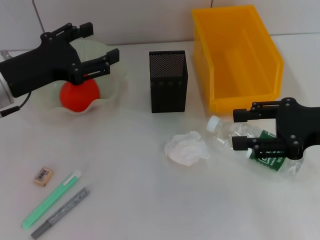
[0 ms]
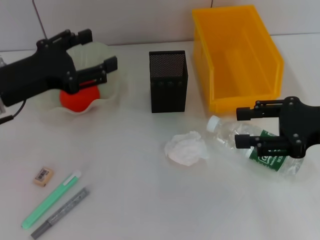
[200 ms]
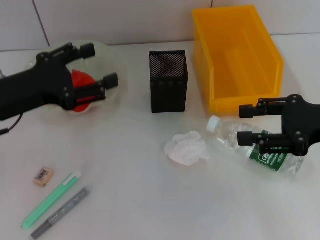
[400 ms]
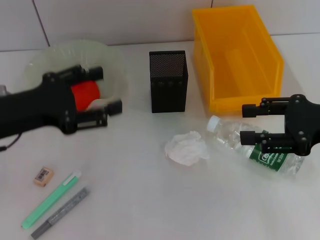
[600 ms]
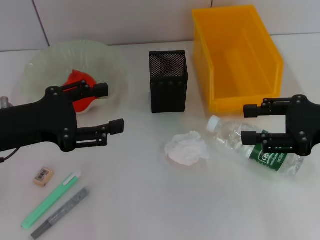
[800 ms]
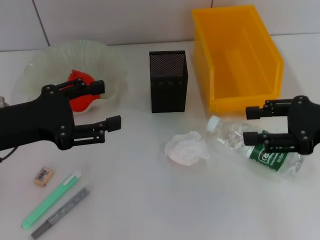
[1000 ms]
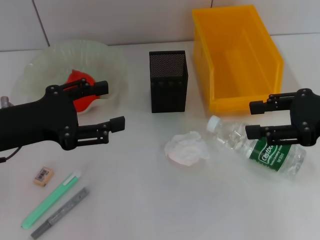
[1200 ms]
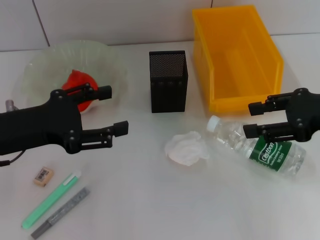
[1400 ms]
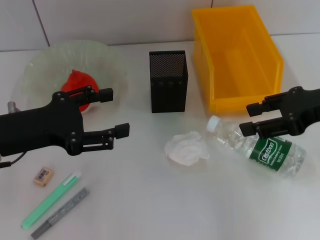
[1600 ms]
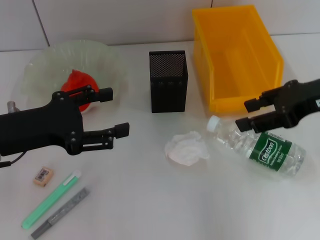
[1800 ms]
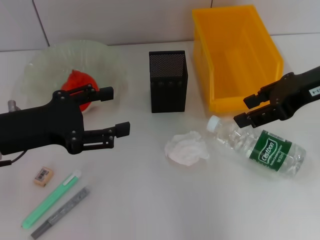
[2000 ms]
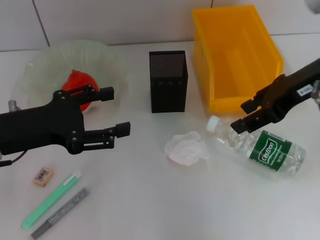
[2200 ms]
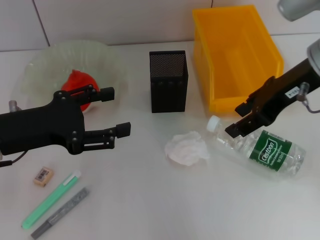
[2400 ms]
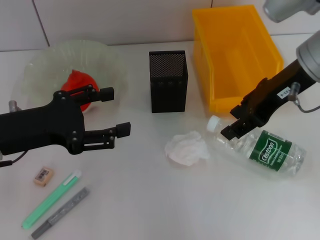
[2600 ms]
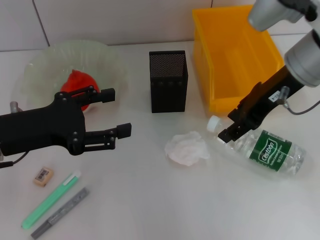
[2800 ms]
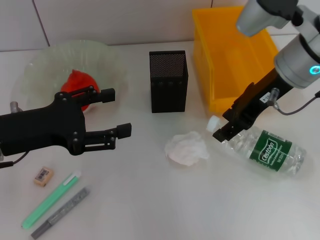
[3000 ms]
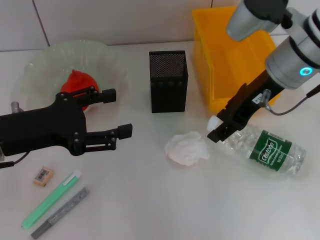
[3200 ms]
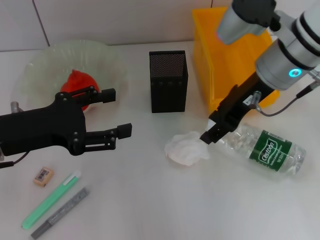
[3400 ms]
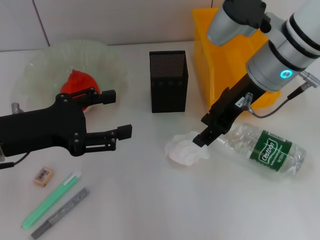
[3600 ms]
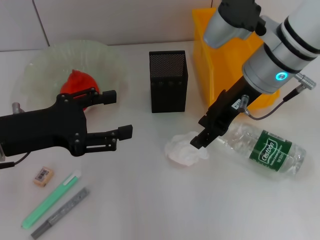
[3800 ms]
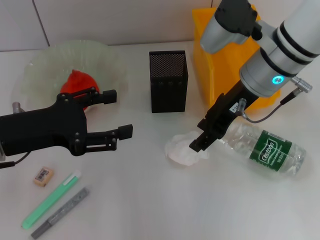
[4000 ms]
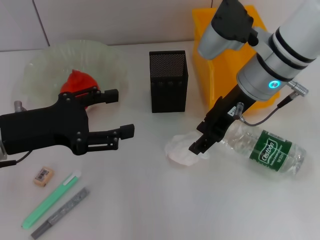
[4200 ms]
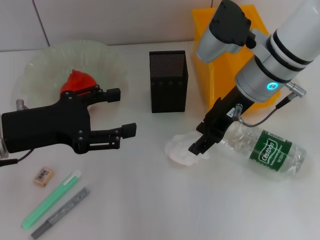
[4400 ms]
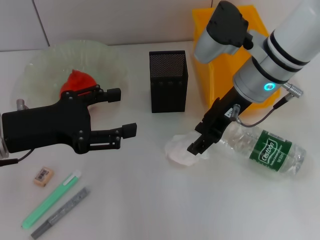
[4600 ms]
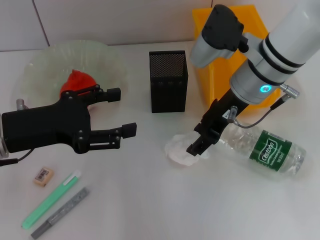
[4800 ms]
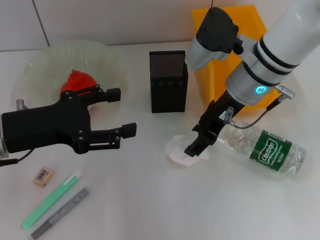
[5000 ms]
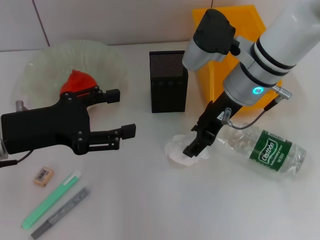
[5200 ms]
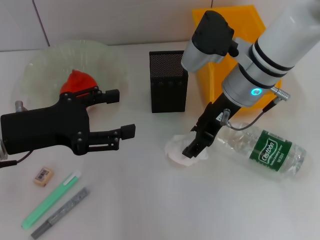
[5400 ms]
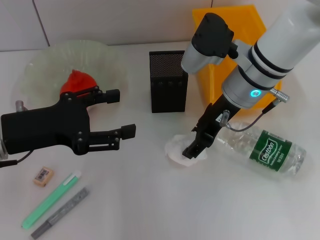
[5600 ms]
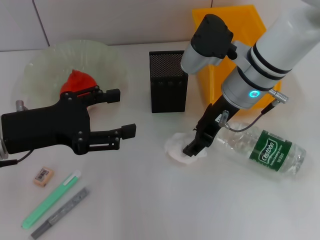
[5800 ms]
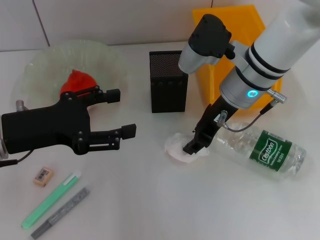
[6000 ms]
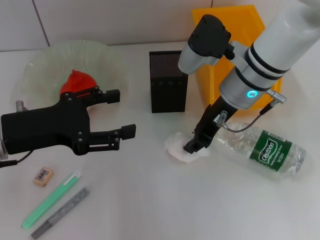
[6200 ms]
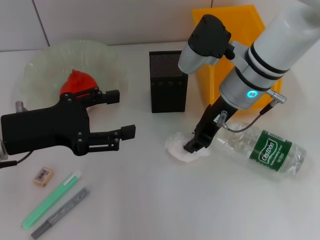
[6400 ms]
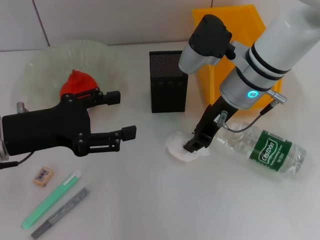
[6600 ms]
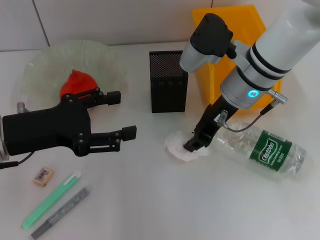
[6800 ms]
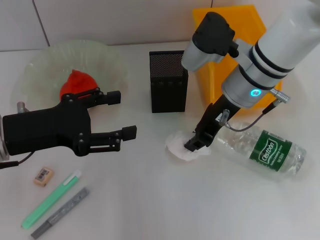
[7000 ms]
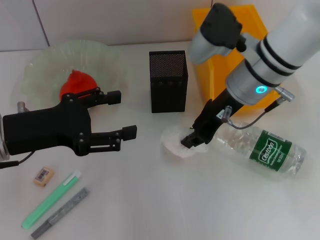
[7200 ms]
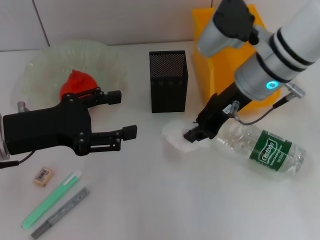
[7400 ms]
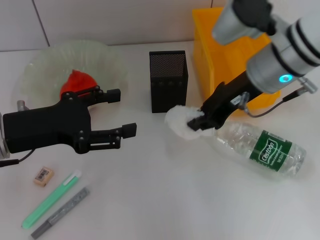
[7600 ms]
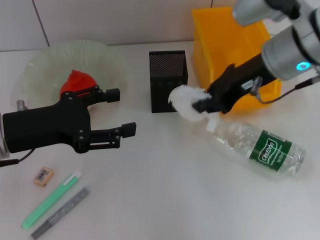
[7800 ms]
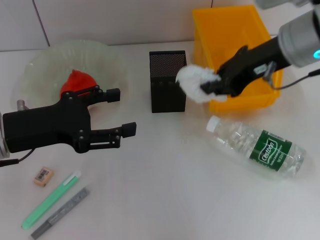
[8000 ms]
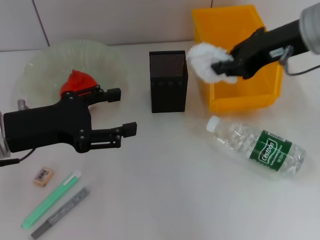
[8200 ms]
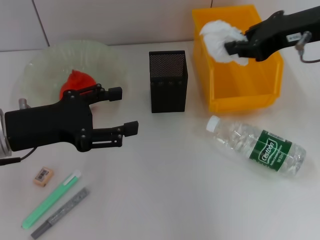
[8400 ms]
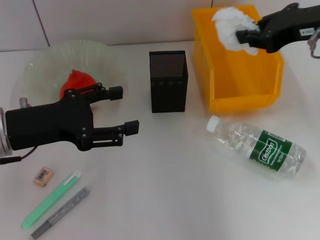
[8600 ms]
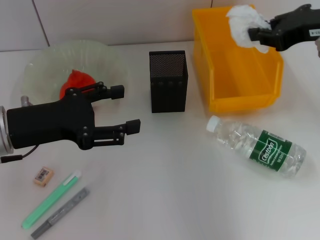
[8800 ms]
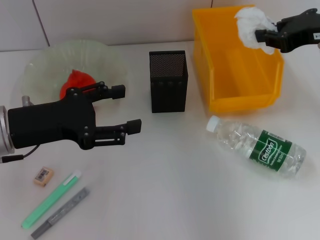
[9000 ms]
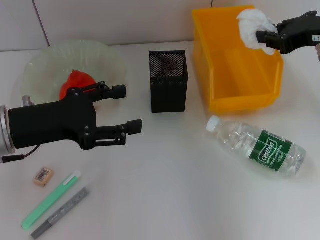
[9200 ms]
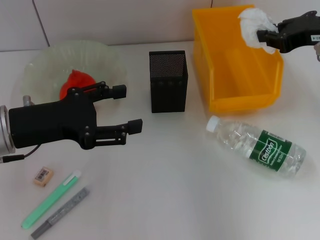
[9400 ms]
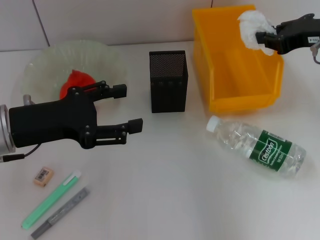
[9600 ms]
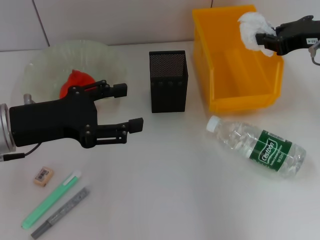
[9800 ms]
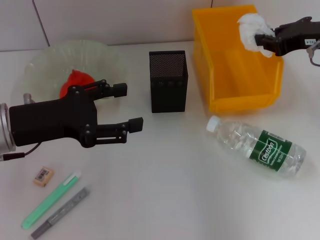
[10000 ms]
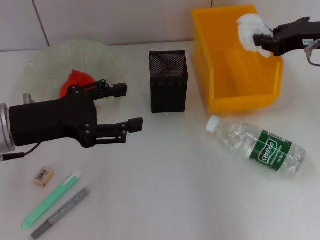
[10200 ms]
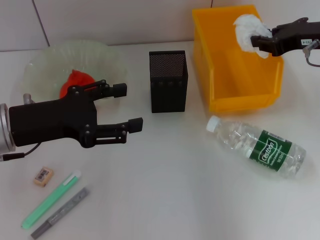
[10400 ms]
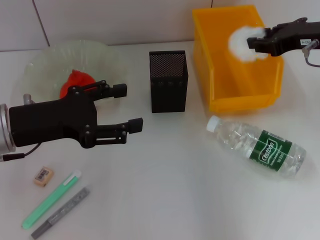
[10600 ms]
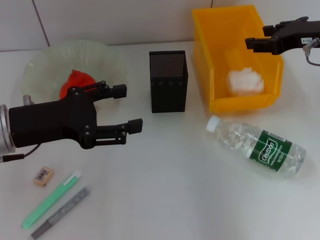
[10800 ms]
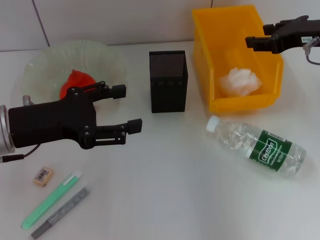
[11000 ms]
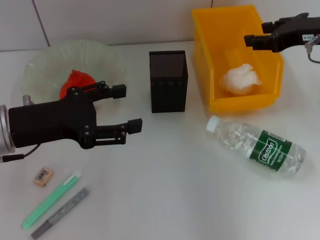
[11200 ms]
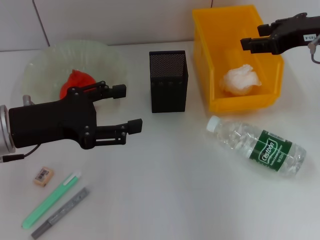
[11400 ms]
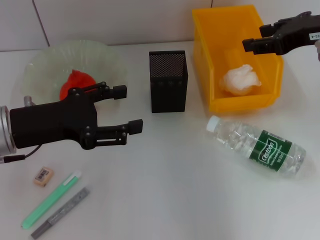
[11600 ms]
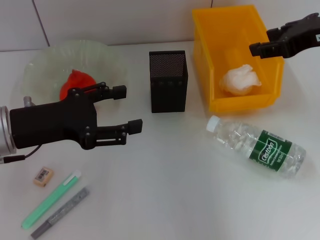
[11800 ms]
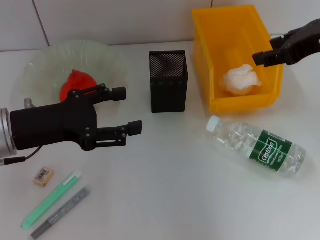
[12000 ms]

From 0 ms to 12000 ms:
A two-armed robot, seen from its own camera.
Step, from 0 ms to 6600 ms: Grab the paper ball with the right hand.
Step, from 6800 ms to 10800 ms: Place the paper ball into the trash can with the right hand.
From 0 ms to 1600 ms: The left gripper heads backward, covering roughly 5 cm. Meanwhile the right gripper moves approximately 5 cm.
From 1600 ms to 3000 ms: The right gripper is displaced to the left and forward by some 10 cm.
From 3000 ms to 4400 ms: The right gripper moves some 5 cm.
From 4400 ms to 6000 ms: The grippers stay close to where they were, moving slightly.
From 6000 ms to 7600 ms: The right gripper shifts by roughly 5 cm, and closes up.
From 7600 ms to 9000 ms: The right gripper travels to the right by approximately 10 cm.
From 9000 ms to 10400 ms: The grippers move only a little.
From 10400 ms to 12000 ms: The right gripper moves upward, roughly 5 cm, and opens up.

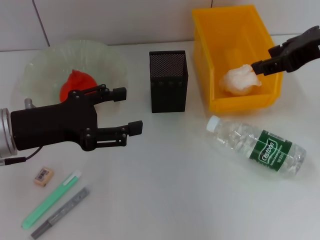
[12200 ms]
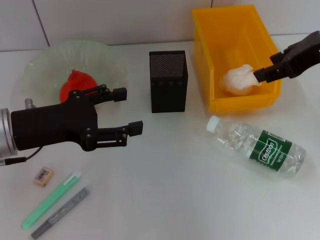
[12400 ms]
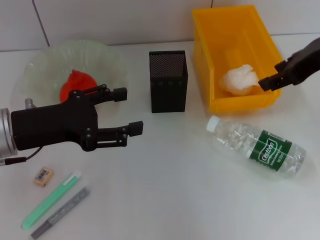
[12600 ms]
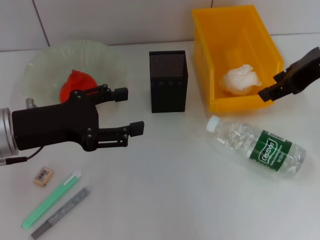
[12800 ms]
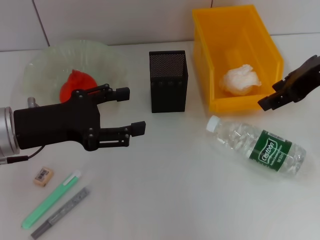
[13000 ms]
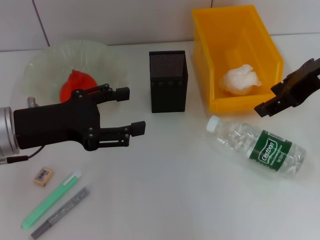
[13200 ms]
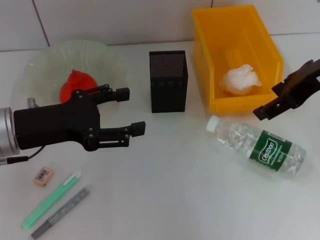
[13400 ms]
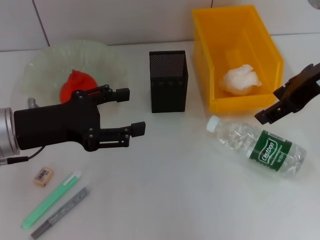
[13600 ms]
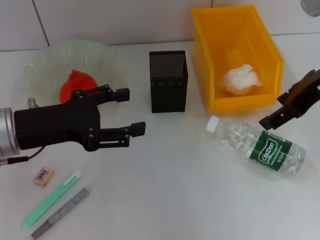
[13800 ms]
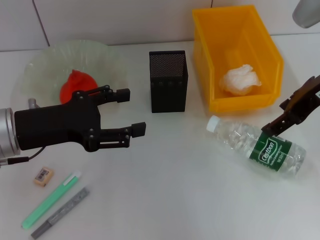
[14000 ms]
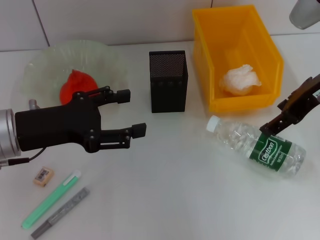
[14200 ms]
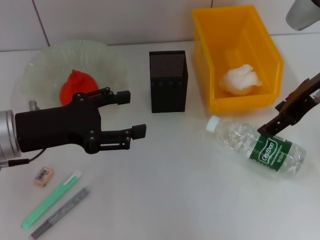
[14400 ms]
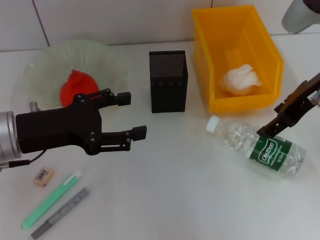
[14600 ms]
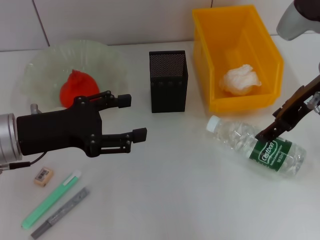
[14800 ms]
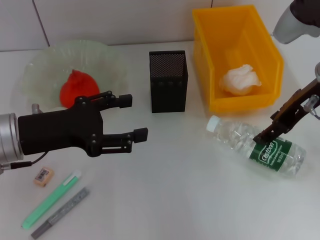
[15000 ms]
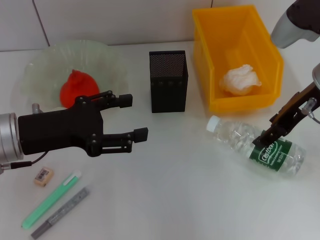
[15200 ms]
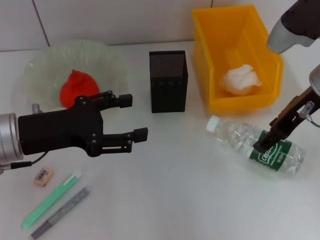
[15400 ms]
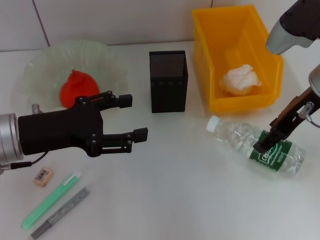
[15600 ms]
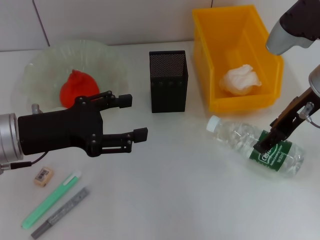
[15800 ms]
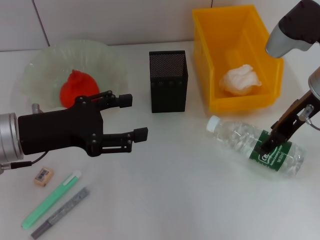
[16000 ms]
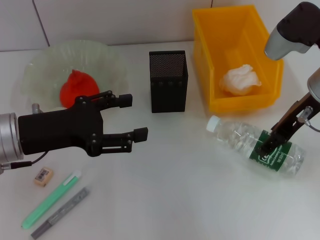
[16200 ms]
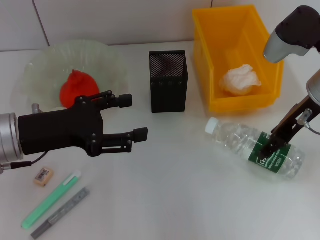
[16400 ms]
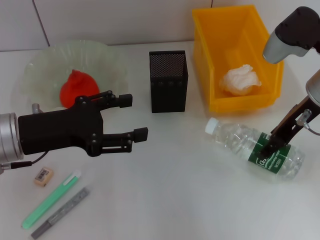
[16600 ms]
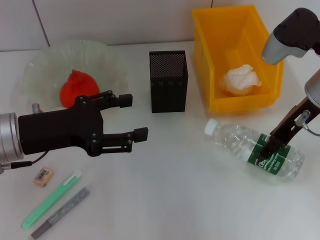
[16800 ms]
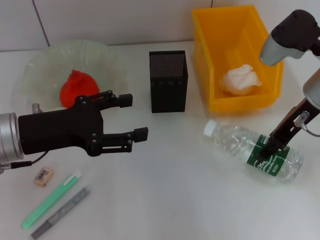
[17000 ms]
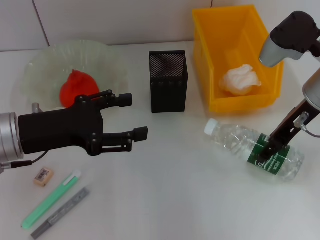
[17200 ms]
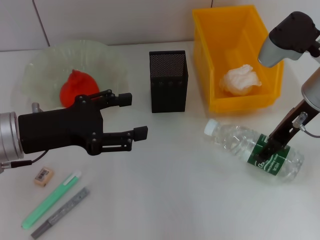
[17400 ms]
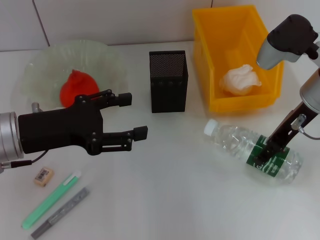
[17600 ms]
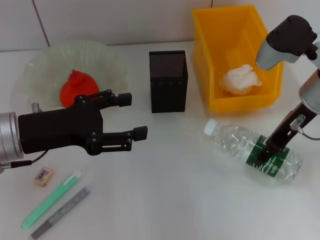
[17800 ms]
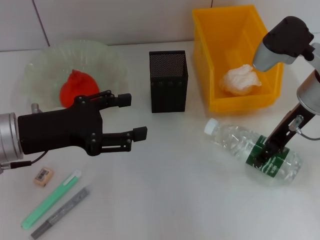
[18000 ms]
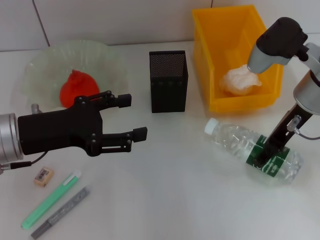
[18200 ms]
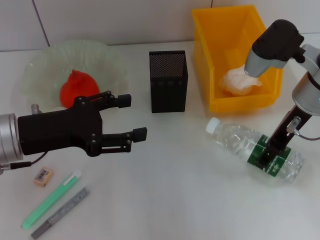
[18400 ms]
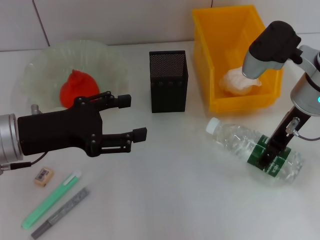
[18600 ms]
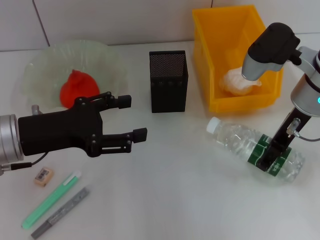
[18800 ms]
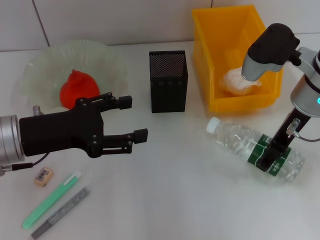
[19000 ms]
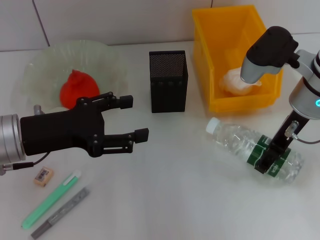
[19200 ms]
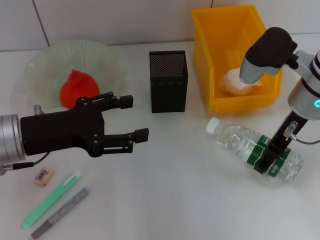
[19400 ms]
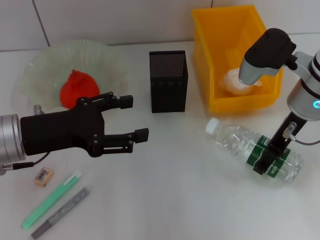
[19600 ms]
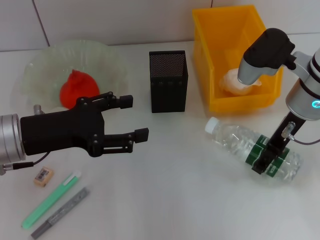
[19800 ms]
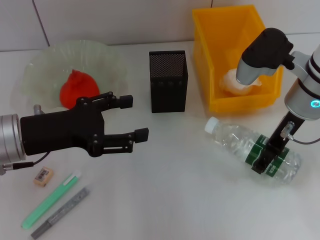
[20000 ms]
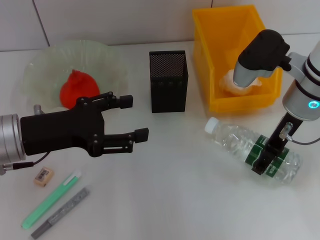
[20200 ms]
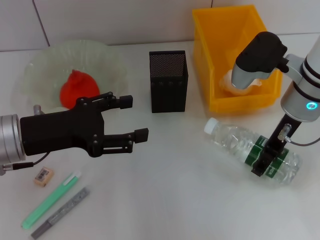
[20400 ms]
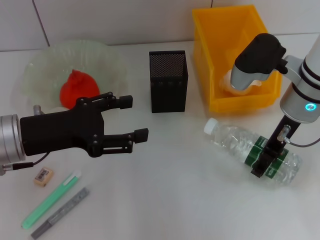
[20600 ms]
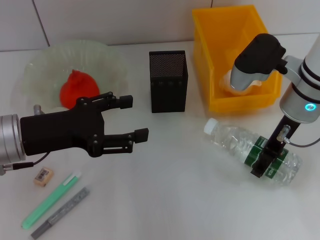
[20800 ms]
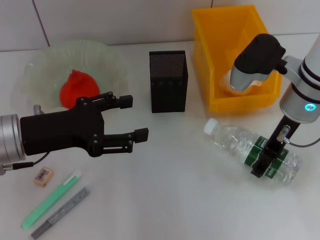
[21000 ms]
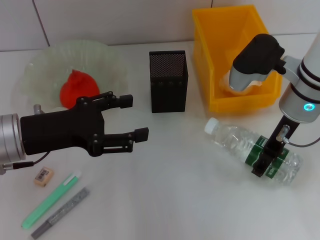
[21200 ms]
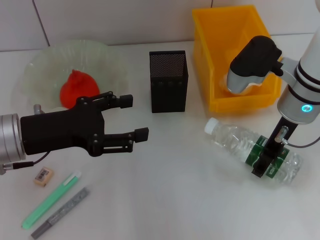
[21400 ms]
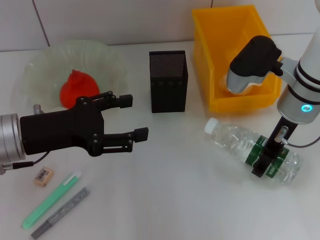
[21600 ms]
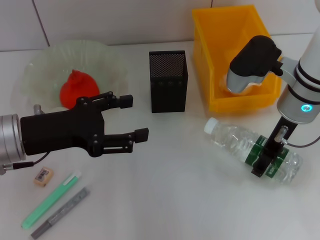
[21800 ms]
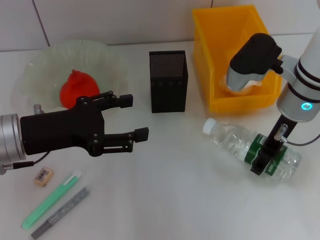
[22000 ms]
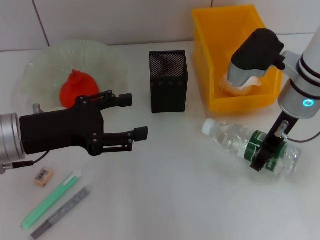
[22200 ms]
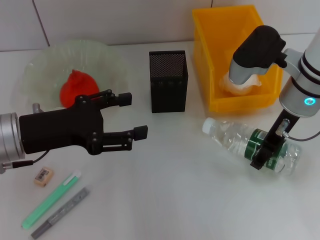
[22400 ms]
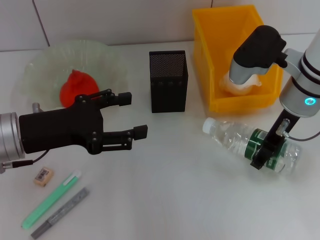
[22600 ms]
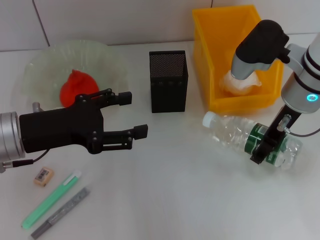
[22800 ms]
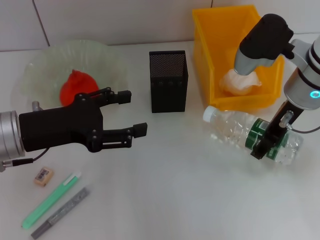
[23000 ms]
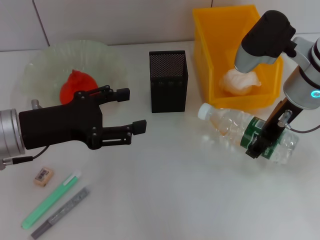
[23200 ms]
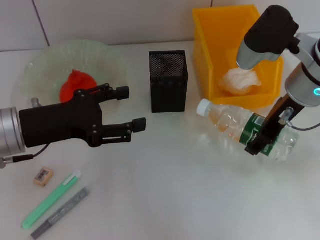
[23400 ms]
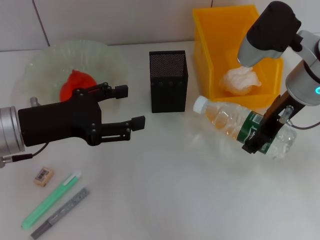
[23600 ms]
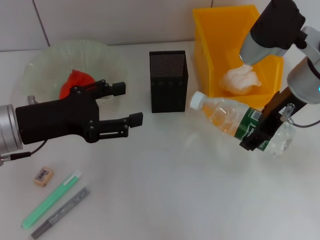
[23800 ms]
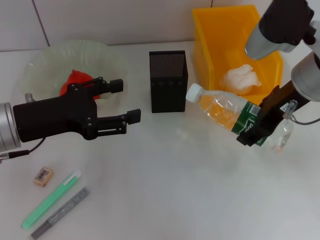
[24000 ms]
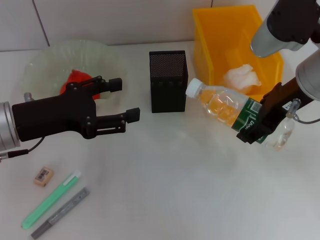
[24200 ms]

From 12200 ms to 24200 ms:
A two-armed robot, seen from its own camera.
Step, from 12200 ms to 21000 ms: Grab the water bottle with the right hand.
From 12200 ms to 13800 ms: The right gripper opens its fingers.
From 13800 ms to 15200 ms: There are only small adjustments of the grippers.
From 15200 ms to 19800 ms: The grippers make only small movements.
From 19800 ms to 21200 ms: Neither gripper changes place.
From 21200 ms to 22600 ms: Both grippers stay about where they are.
From 22600 ms to 24200 ms: The right gripper moves upward, some 5 cm.
